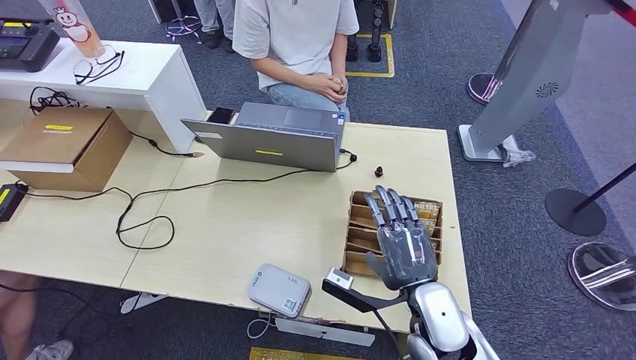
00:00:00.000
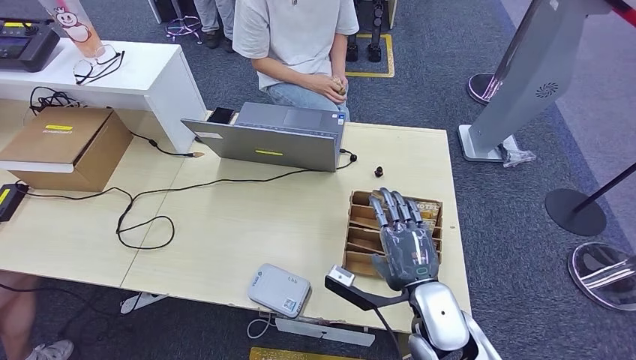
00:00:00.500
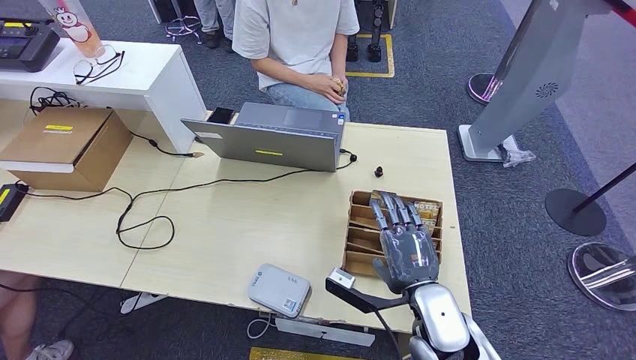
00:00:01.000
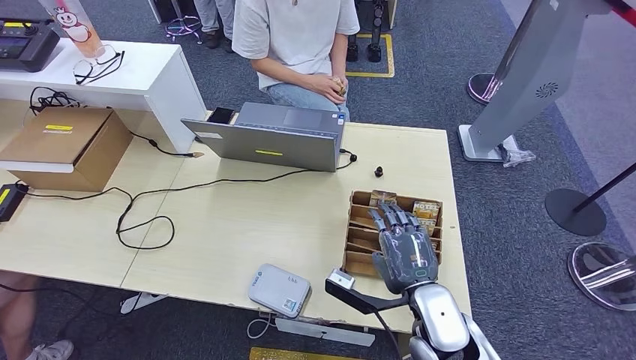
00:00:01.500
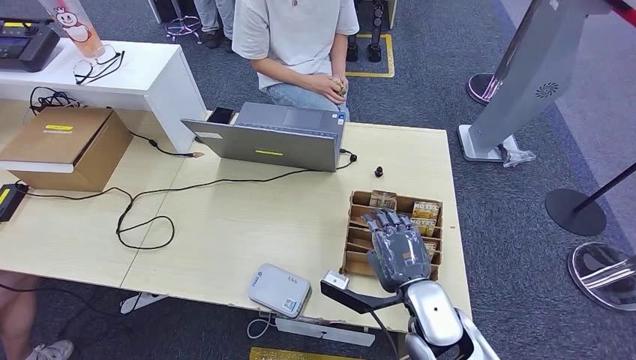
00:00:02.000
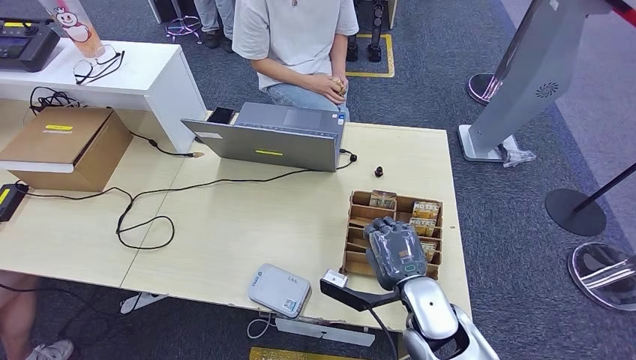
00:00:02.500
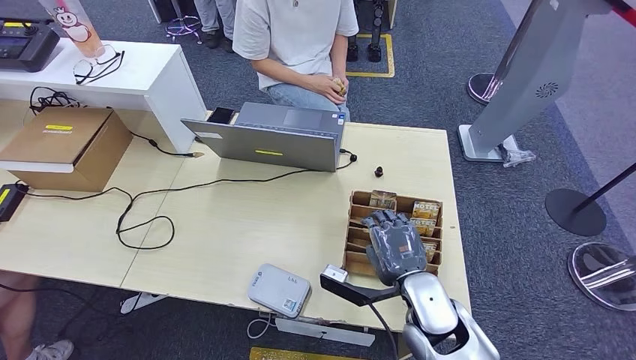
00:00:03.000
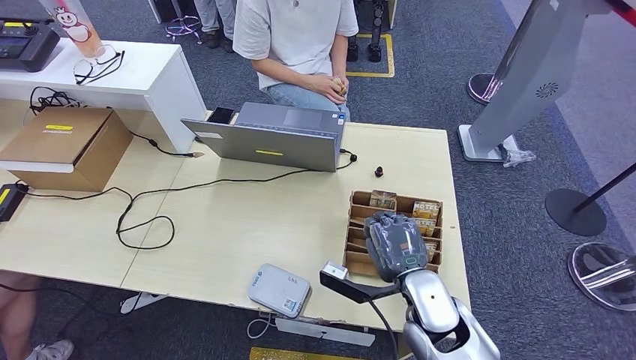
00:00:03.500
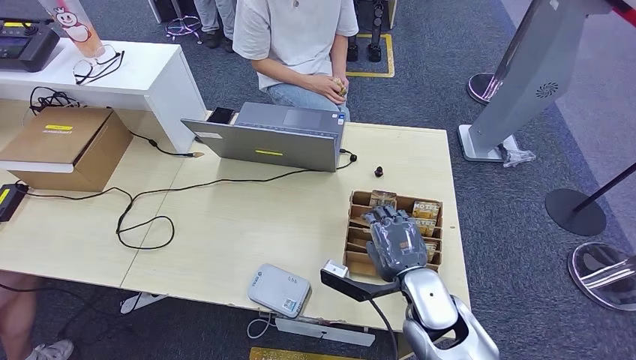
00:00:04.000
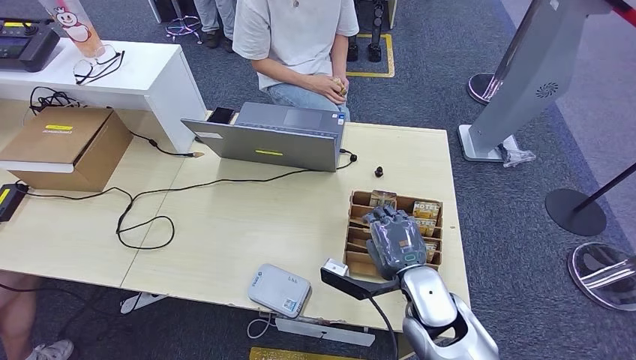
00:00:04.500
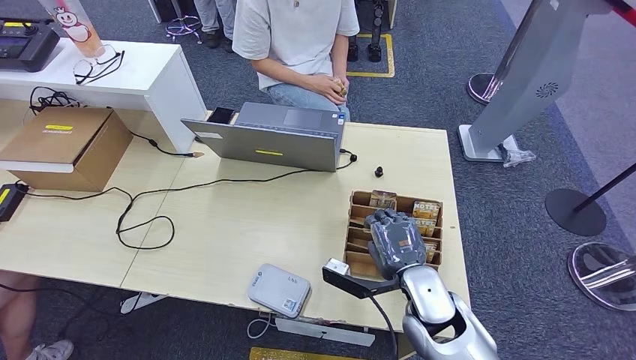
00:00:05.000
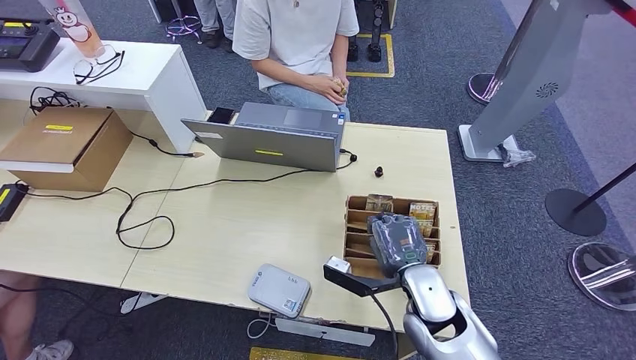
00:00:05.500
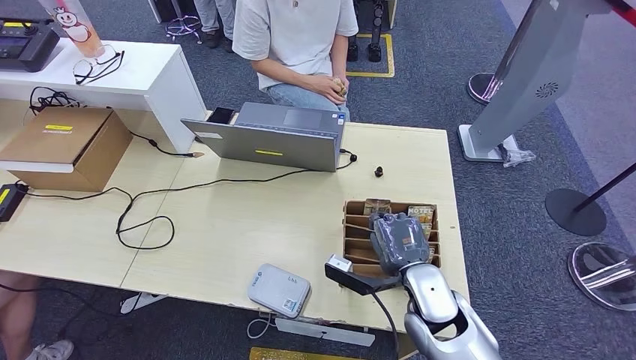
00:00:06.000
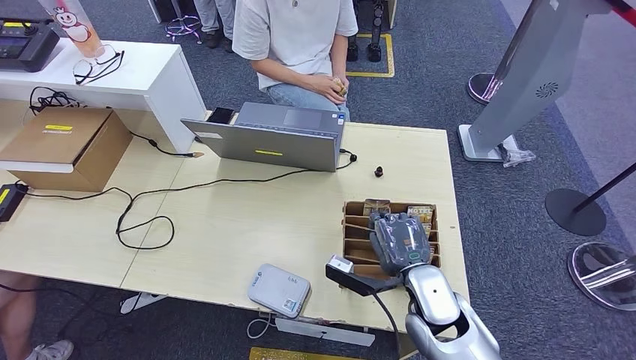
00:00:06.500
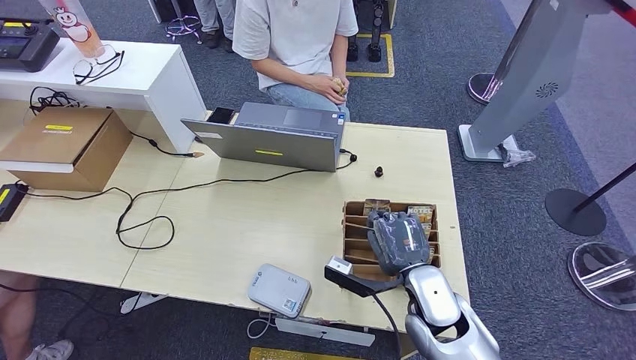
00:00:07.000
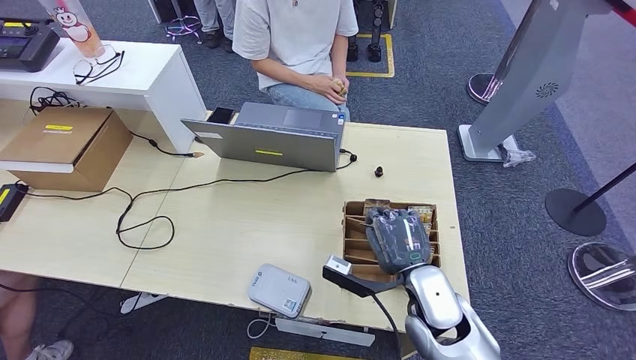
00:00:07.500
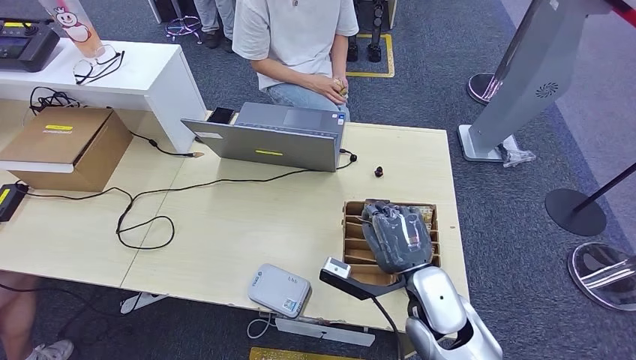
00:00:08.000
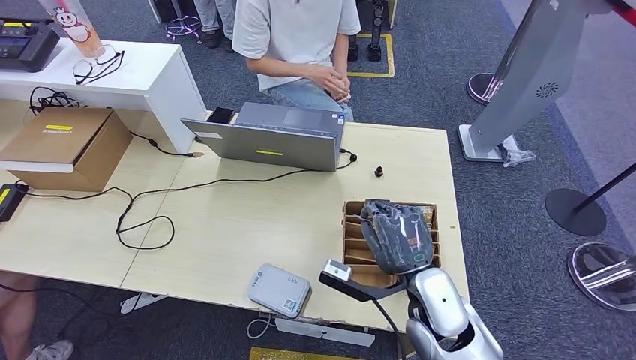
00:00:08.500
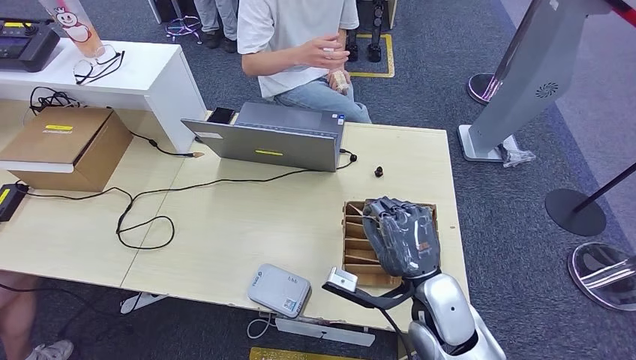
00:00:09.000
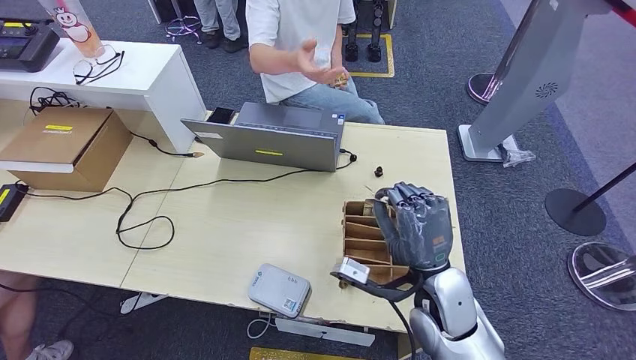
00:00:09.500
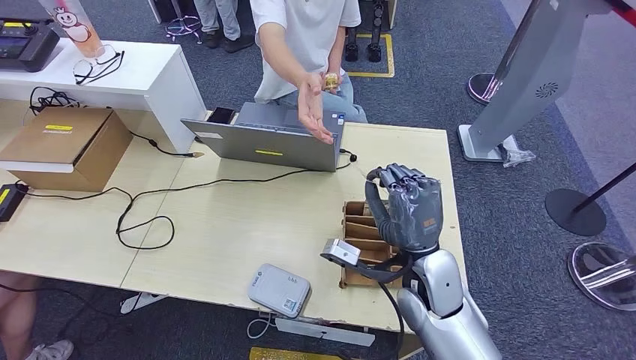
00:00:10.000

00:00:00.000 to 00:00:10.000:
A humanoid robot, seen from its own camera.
Step, 00:00:00.000 to 00:00:07.500: Pick up the room key from the key card box.
Step, 00:00:08.500 to 00:00:10.000: Hand the room key to the person.
00:00:00.000 to 00:00:04.000: The hands make only small movements.
00:00:04.000 to 00:00:06.000: Neither hand changes place.
00:00:06.000 to 00:00:08.000: The hands make only small movements.
